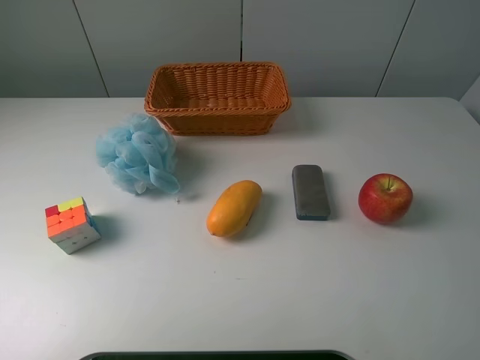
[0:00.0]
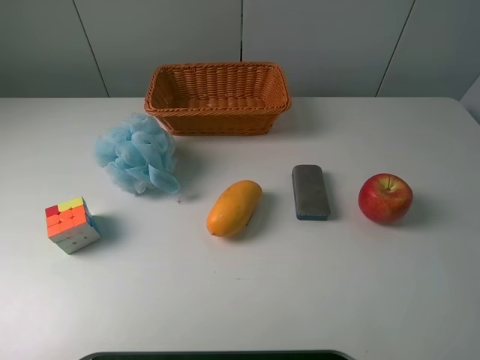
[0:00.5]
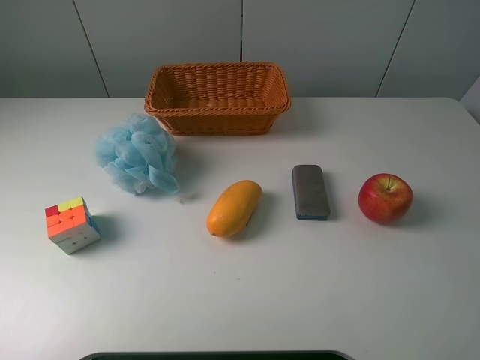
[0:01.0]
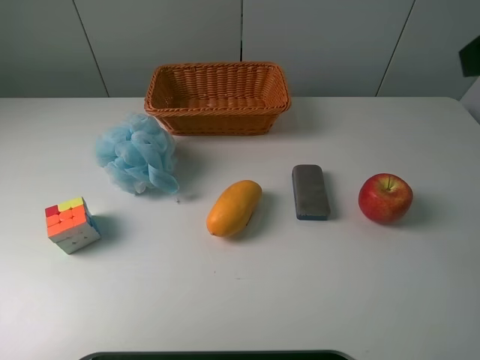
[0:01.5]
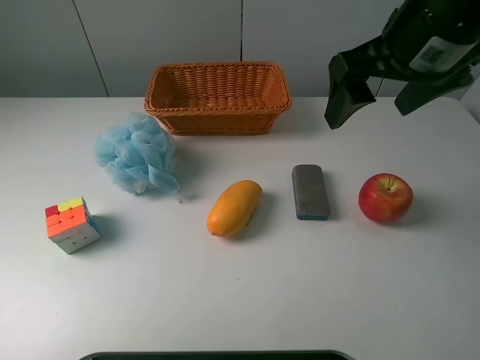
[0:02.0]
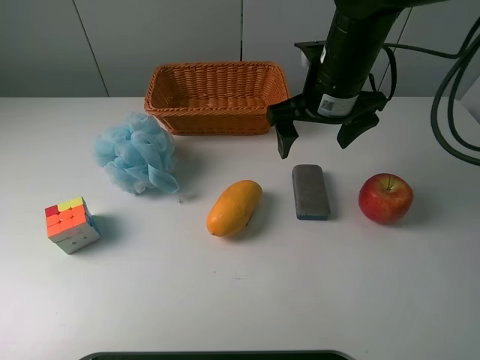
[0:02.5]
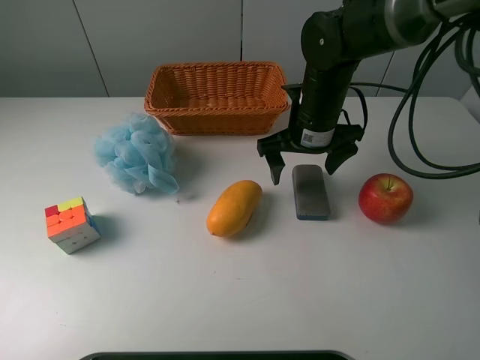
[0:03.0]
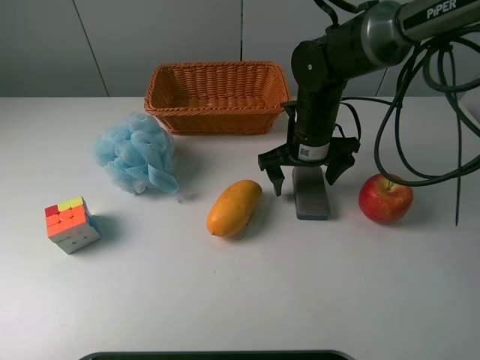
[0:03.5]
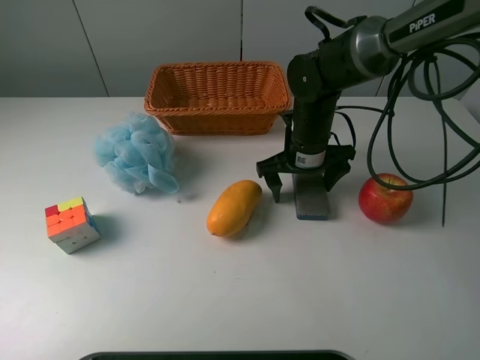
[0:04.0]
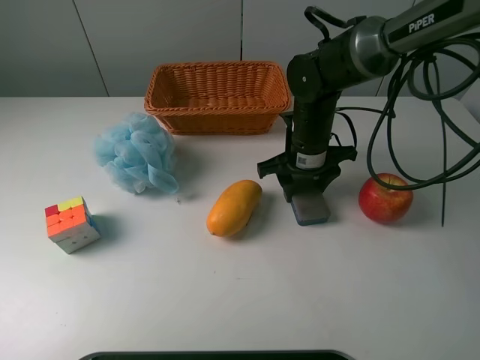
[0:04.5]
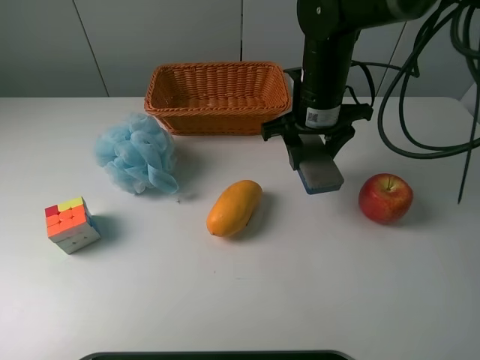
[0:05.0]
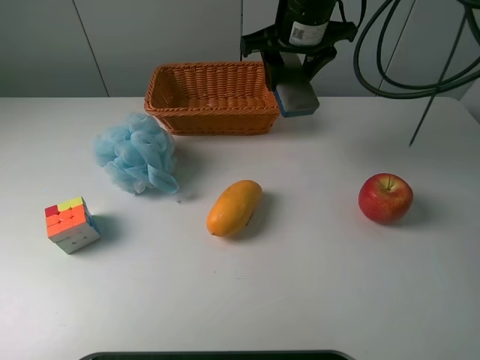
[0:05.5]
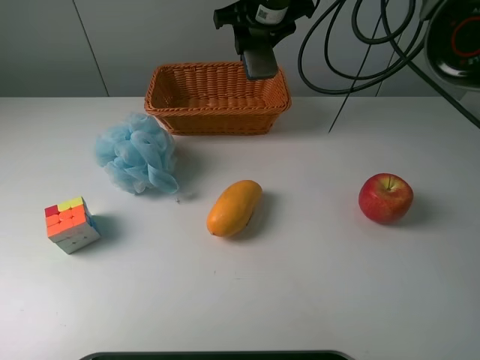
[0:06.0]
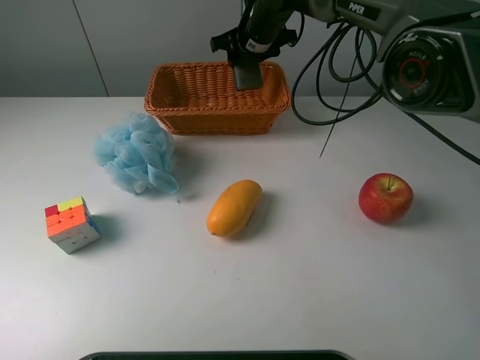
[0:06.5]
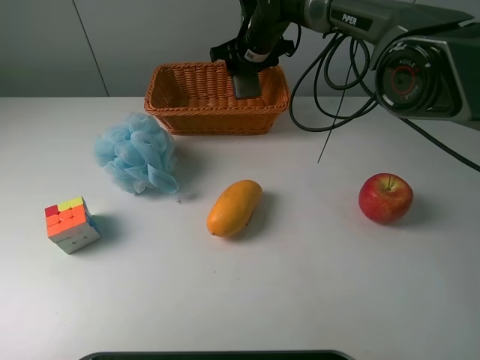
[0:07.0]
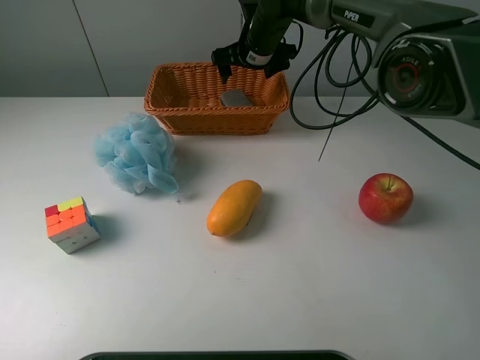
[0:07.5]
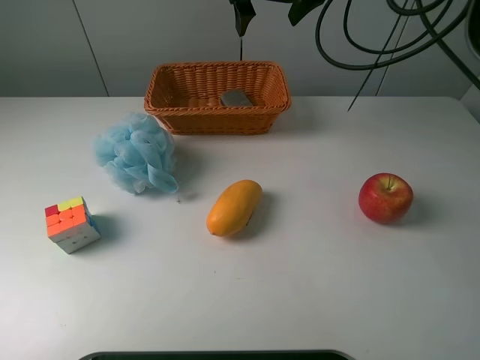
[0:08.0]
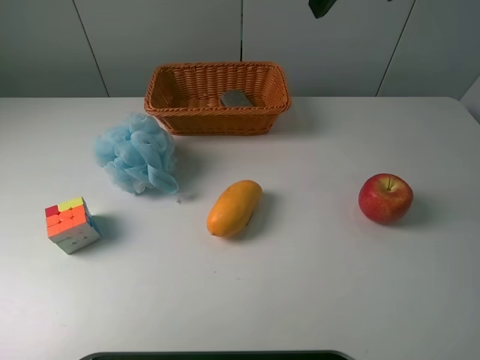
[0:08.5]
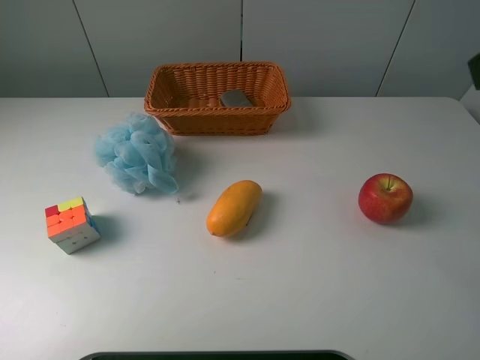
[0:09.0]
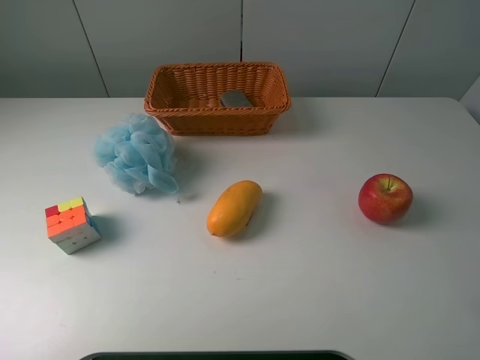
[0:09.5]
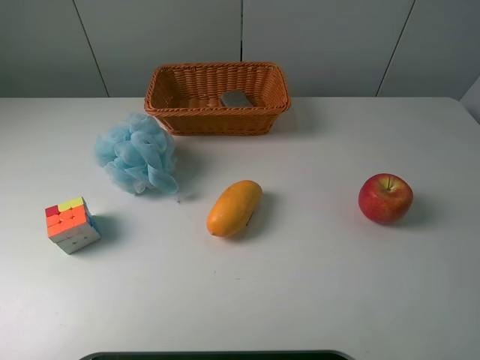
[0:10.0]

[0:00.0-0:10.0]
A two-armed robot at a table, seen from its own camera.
Task of the whole recording: use a picker to grab the item closest to the apple and place it in the basket.
Step, 0:00.0 to 0:04.0: Grasp the chalkboard eraser with the right gripper.
Step, 0:04.5 to 0:07.5: Place the chalkboard eraser into the basket with the right gripper.
0:00.0 to 0:02.0: The right gripper travels forward and to the left by roughly 30 cm.
0:02.0 to 0:04.0: The right gripper goes roughly 20 cm downward and forward.
0:04.0 to 0:06.0: The right gripper heads upward and forward, covering roughly 20 cm, and closes its fingers.
0:06.0 to 0:08.0: The right gripper travels upward by approximately 5 cm, and opens up.
0:08.0 to 0:10.0: The right gripper shifts approximately 50 cm backward and to the right.

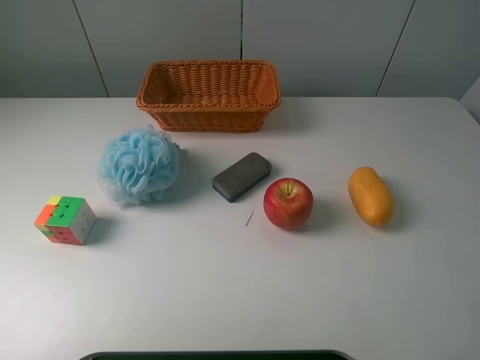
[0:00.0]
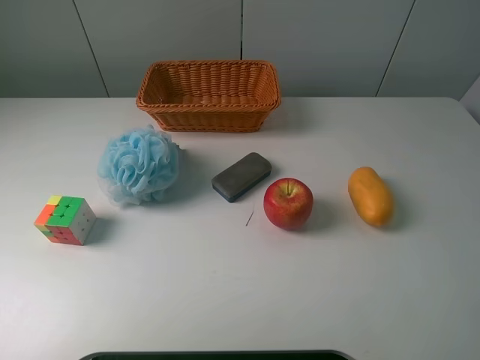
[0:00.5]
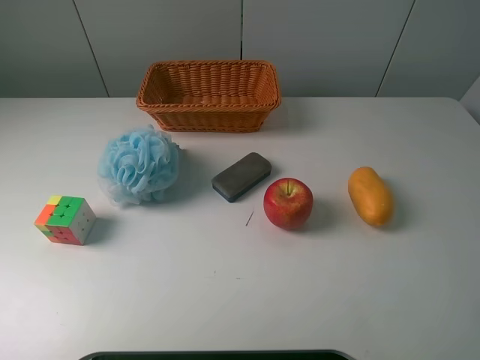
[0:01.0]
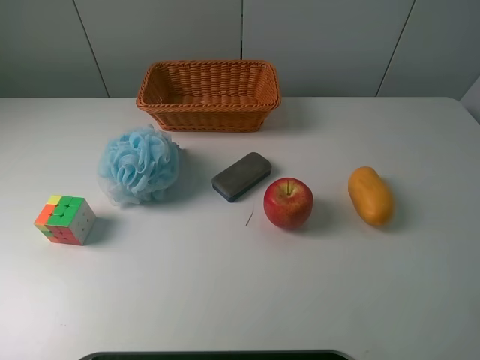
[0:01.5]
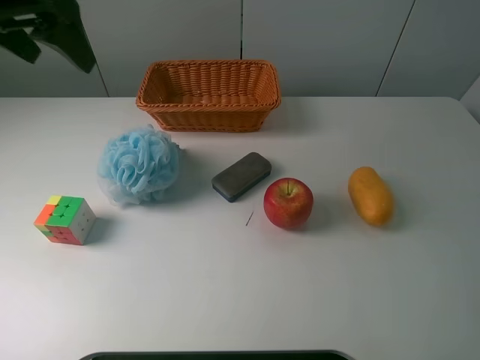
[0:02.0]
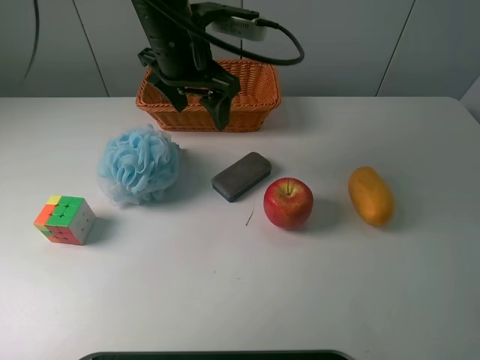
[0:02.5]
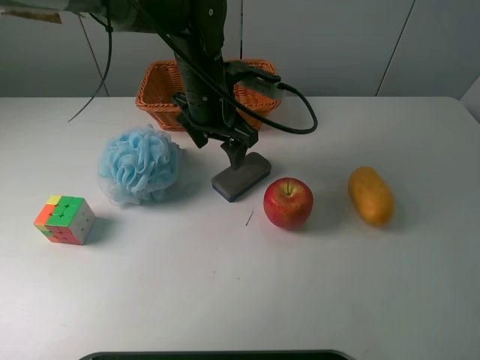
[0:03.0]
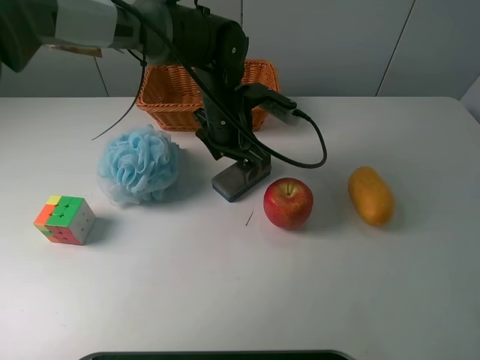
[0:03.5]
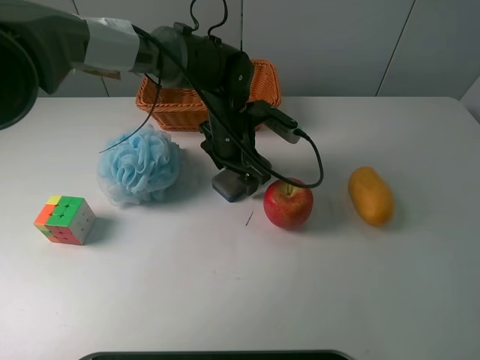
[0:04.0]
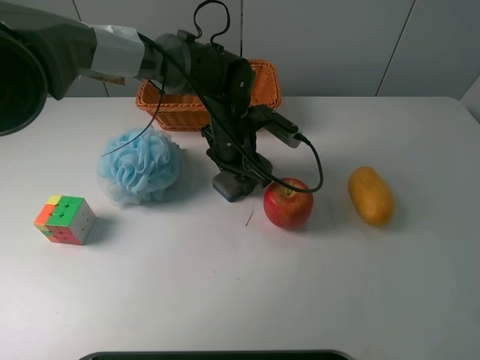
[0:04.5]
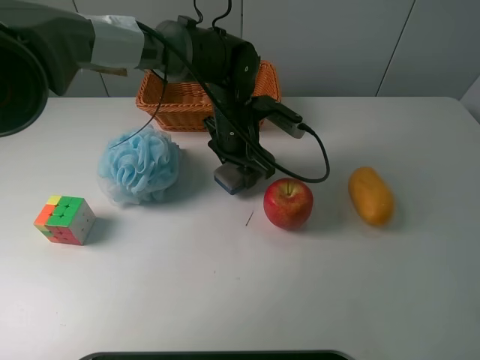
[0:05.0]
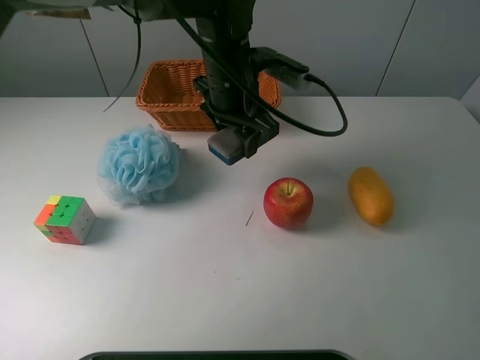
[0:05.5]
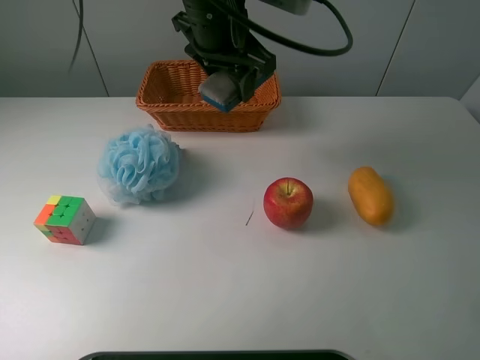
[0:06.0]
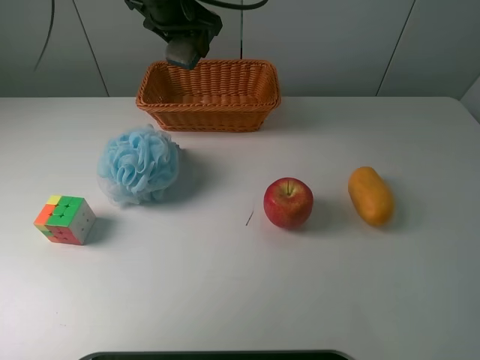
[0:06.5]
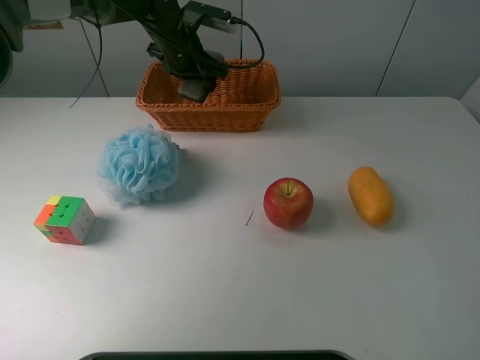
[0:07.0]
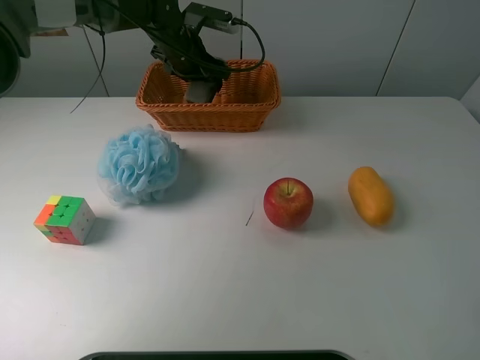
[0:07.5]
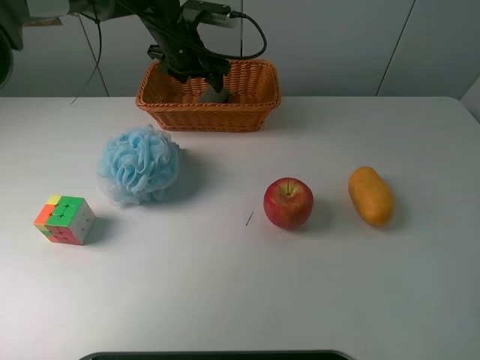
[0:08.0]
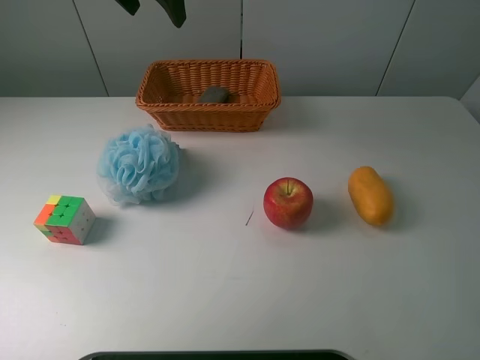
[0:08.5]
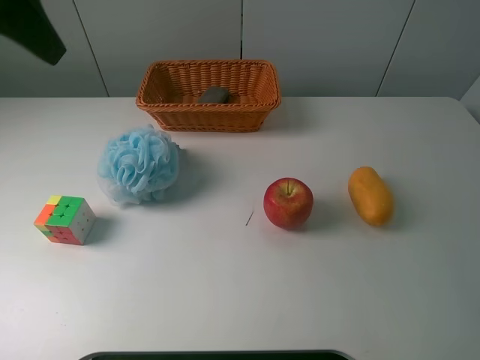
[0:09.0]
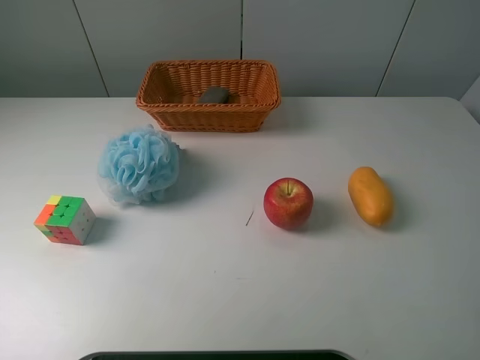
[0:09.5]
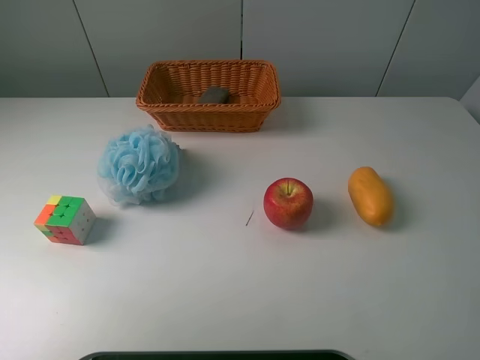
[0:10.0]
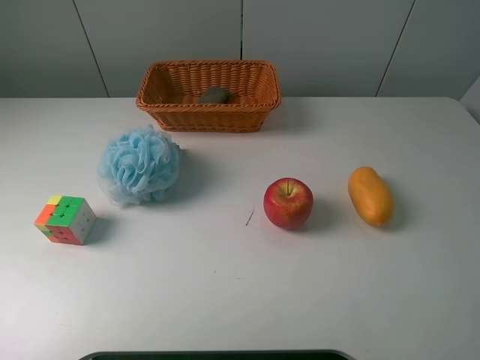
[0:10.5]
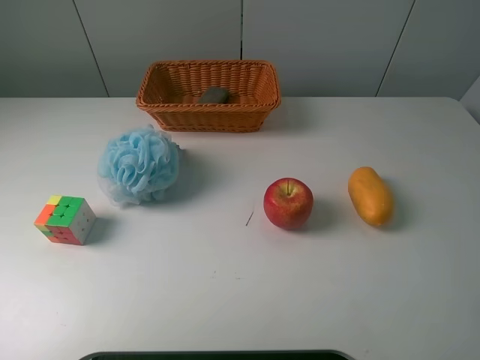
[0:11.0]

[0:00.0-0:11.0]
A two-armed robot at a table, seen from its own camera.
Task of the whole recording: use a picker to grab the item closest to the apple and place it in the basket.
Step, 0:00.0 to 0:04.5: Grasp the chalkboard eraser with the left gripper.
Step, 0:05.0 to 0:08.0: Place the chalkboard eraser into the basket with the left gripper.
0:02.0 to 0:03.5: The left gripper heads to the right and downward, covering about 30 cm.
0:03.5 to 0:05.5: The left gripper closes its fingers.
0:05.5 to 0:07.5: The left gripper goes some 15 cm forward and to the left.
0:07.5 to 0:09.0: The left gripper goes about 35 cm backward, upward and to the left, and opens.
0:09.0 to 0:11.0: The left gripper heads backward and to the left, covering roughly 30 cm.
